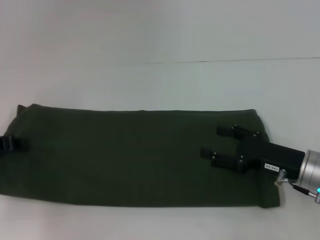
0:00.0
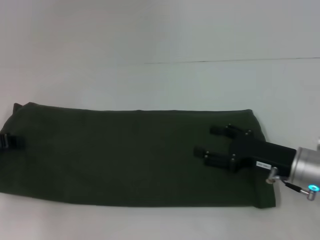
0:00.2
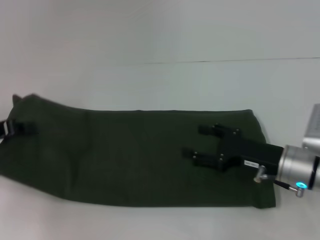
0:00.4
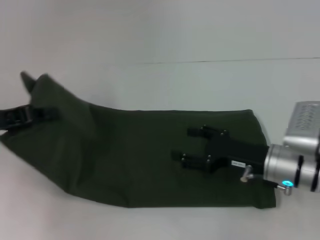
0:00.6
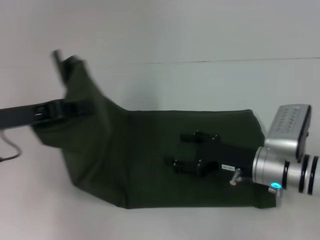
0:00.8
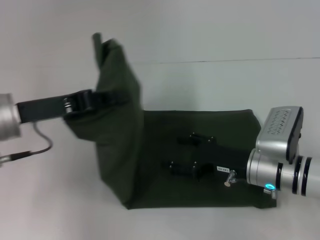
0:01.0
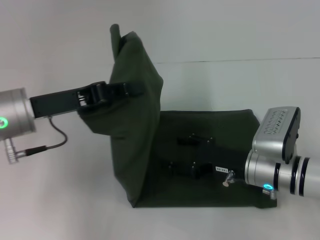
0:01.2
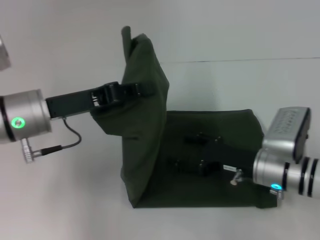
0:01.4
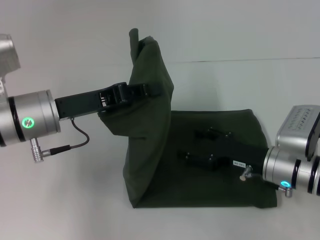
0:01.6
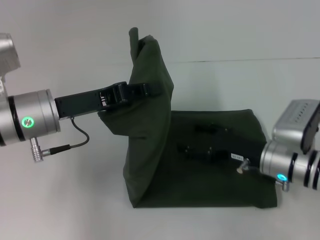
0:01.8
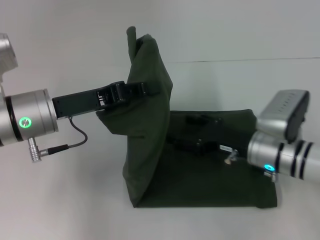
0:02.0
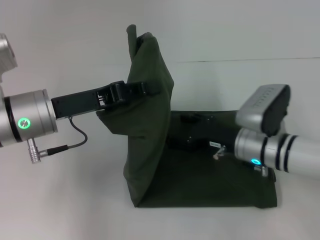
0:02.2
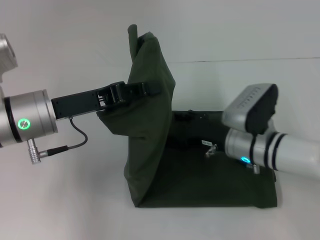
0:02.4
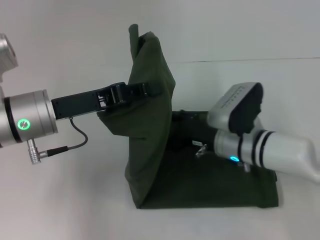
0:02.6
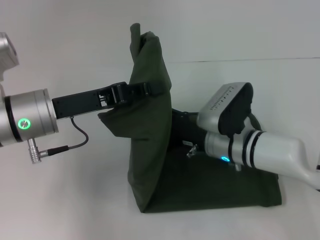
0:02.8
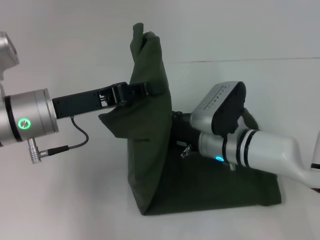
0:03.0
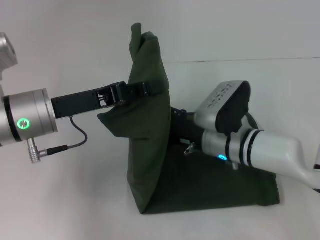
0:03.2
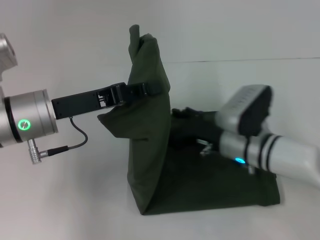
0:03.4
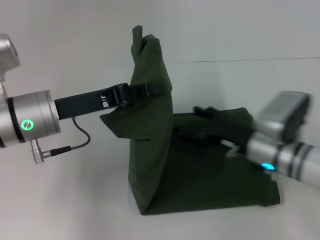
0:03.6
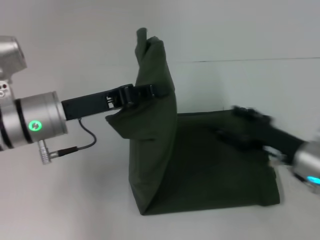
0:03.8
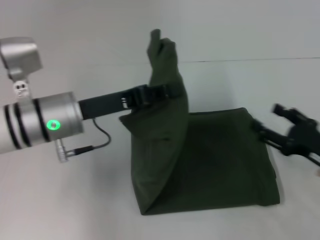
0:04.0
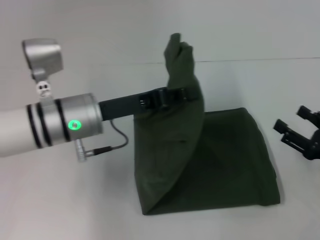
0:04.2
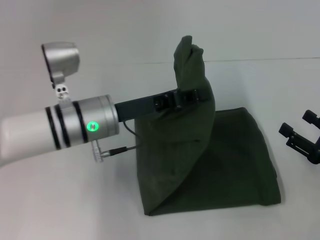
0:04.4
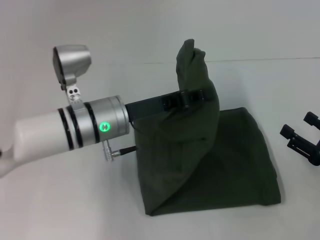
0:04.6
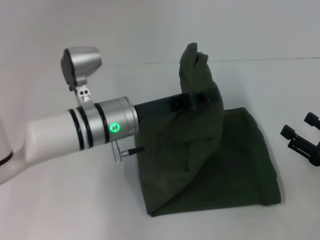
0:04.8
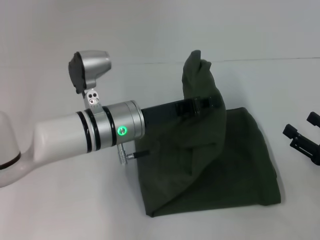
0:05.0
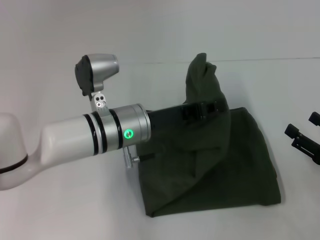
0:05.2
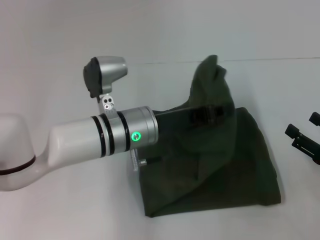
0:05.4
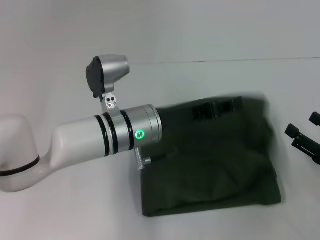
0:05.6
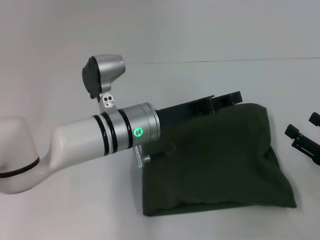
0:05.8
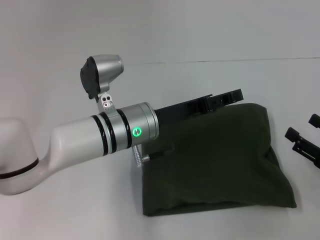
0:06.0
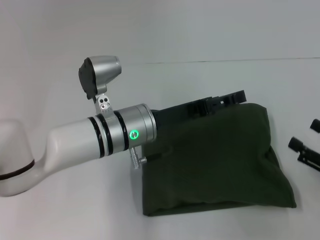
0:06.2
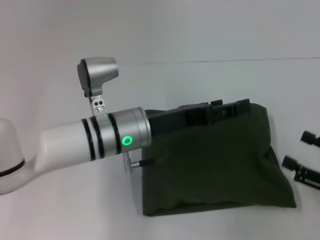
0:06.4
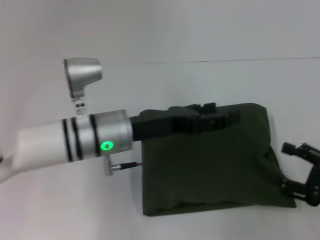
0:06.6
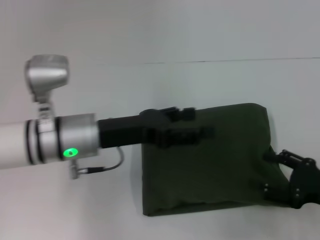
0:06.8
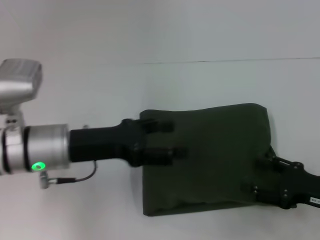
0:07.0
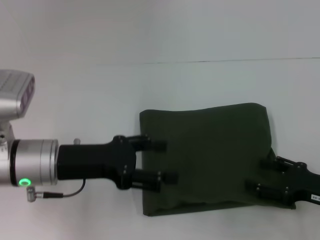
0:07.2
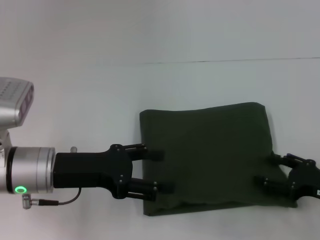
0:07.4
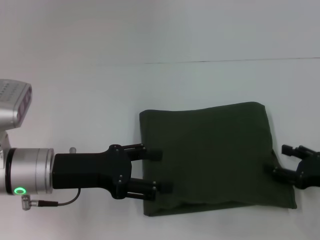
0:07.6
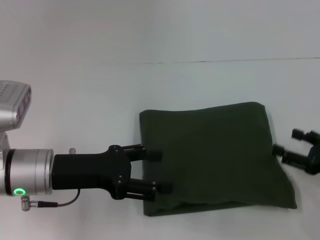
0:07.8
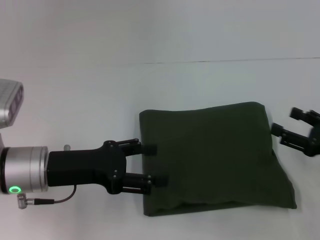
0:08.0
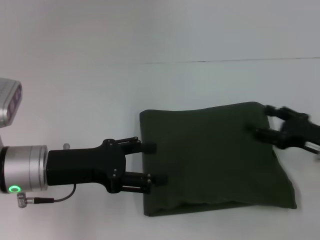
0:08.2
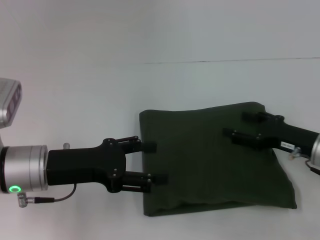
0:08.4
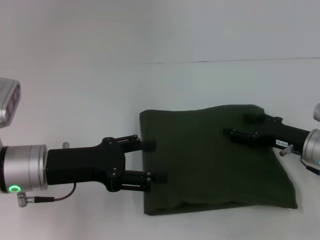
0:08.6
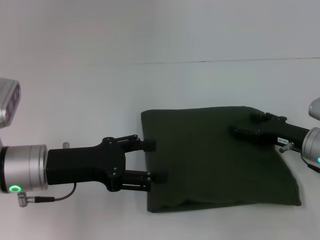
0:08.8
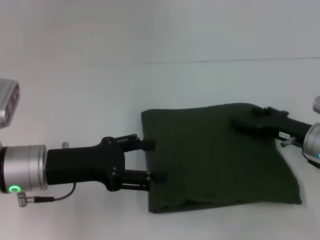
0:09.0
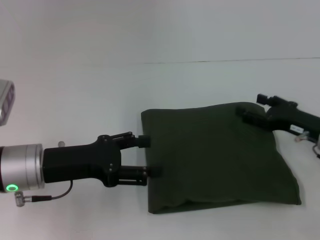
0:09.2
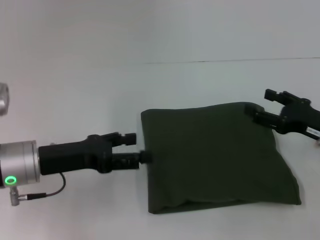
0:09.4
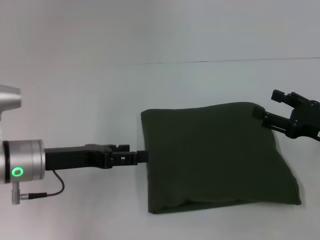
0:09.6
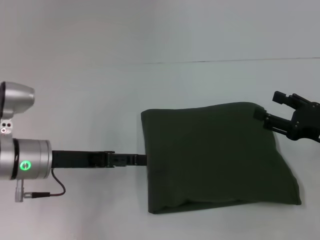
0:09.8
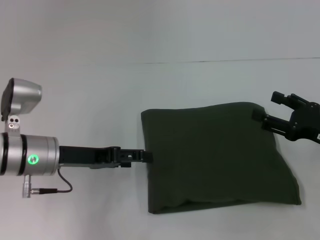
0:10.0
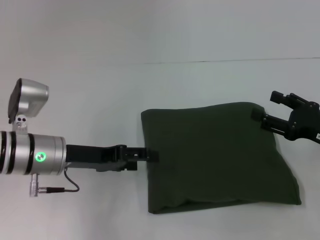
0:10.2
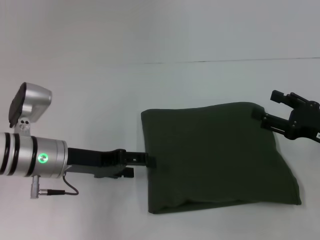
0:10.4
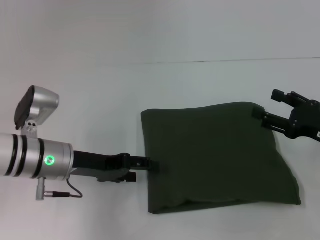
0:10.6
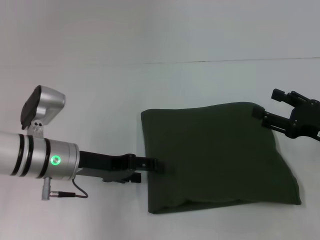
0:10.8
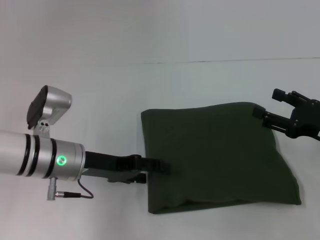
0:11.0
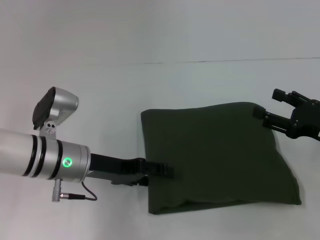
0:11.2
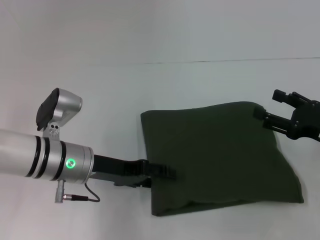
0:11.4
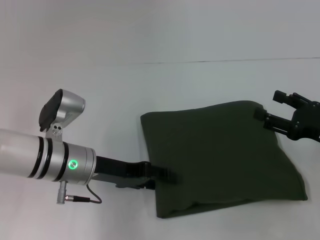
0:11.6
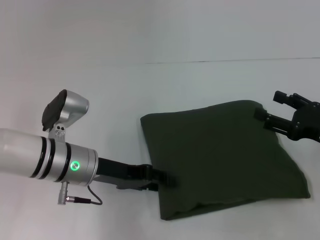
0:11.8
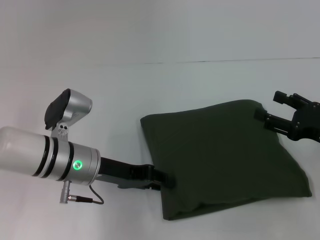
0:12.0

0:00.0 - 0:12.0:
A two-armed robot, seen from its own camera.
Step, 0:00.0 - 0:06.6: Fold the clothes with your left hand.
0:00.0 - 0:01.6: The right gripper moves roughly 5 cm. Meanwhile the left gripper is displaced to the right by some 15 cm.
0:01.6 - 0:03.0: The right gripper heads to the left, covering about 10 cm.
0:03.0 - 0:04.4: The right gripper goes about 25 cm to the right and backward. The left gripper heads to the right, covering approximately 5 cm.
0:04.4 - 0:06.0: The left gripper moves to the right, about 5 cm.
0:06.0 - 0:07.6: The left gripper heads to the left and backward, covering about 15 cm, and opens its fingers.
0:07.6 - 0:09.0: The right gripper is displaced forward and to the left by roughly 10 cm.
0:09.0 - 0:10.4: The right gripper shifts by about 5 cm; the left gripper shifts by some 5 cm.
0:10.4 - 0:12.0: The grippers move only a little.

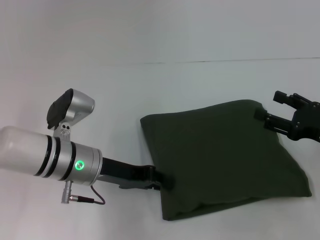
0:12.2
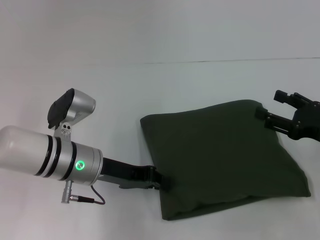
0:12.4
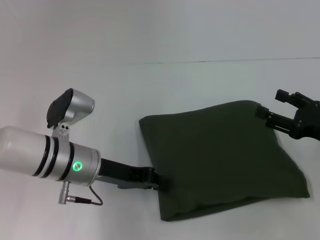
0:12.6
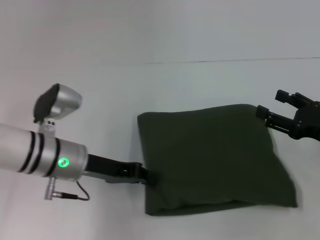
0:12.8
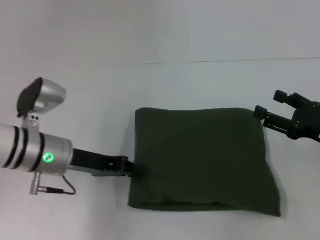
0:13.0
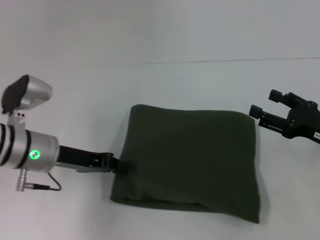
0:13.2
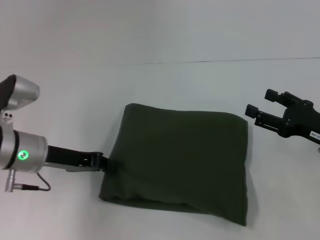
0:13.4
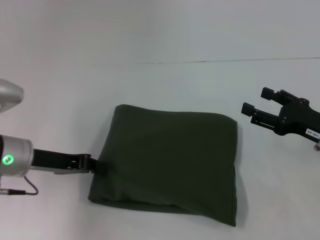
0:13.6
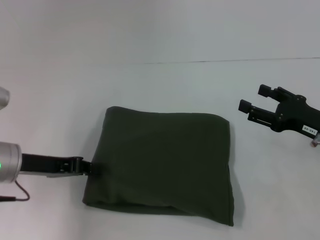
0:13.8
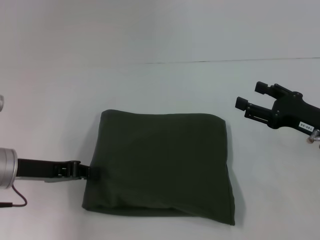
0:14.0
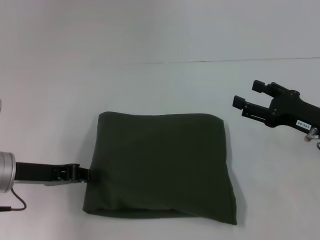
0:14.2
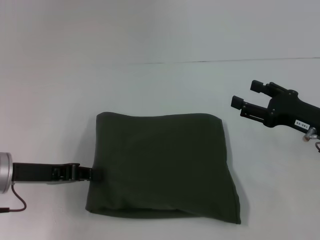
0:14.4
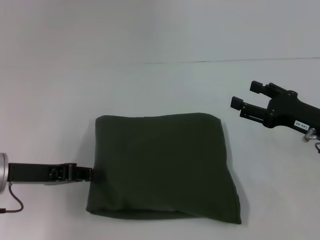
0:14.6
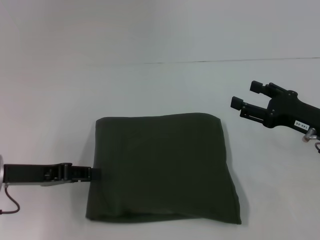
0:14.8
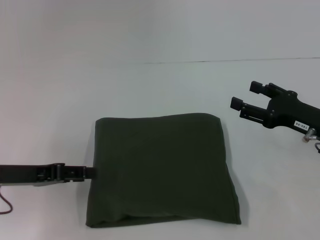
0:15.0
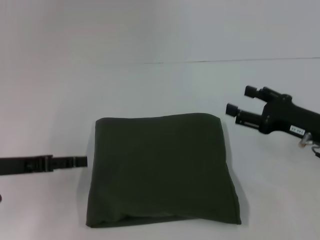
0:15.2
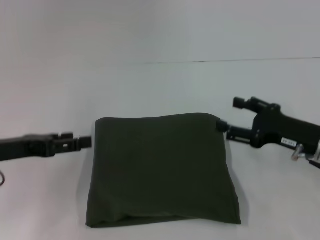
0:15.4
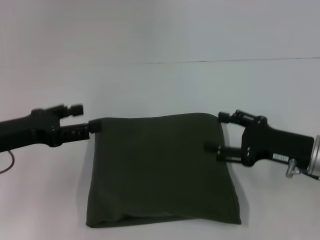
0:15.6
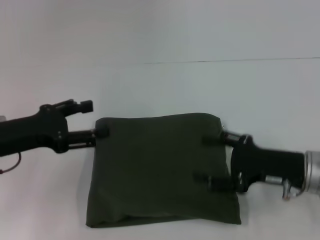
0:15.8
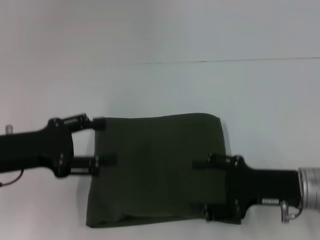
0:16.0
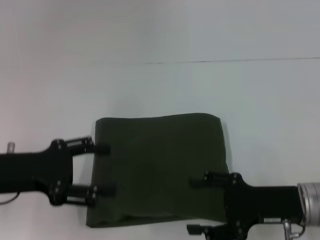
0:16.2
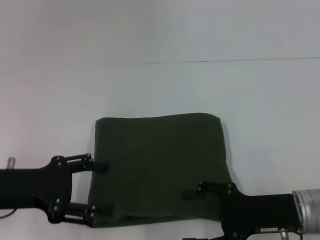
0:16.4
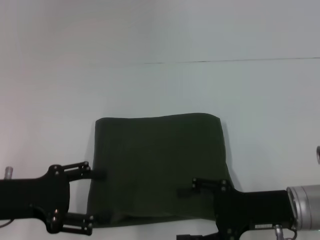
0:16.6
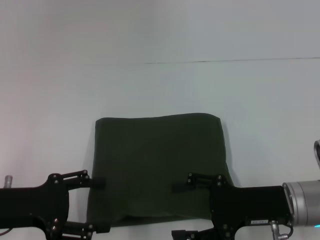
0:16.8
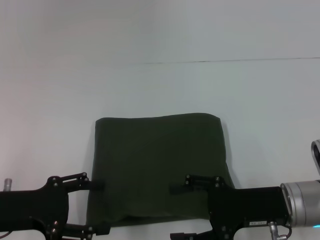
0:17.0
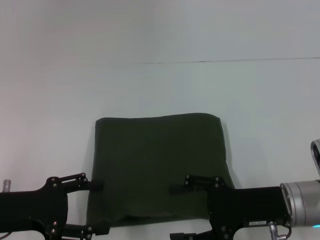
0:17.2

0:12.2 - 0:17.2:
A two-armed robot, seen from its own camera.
0:12.2 - 0:13.8: The left gripper shifts about 10 cm to the left, and closes its fingers.
0:13.8 - 0:15.6: The left gripper opens up.
0:15.6 - 0:17.2: The right gripper shifts some 5 cm to the left; the left gripper is displaced backward by approximately 5 cm.
